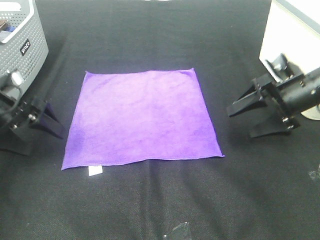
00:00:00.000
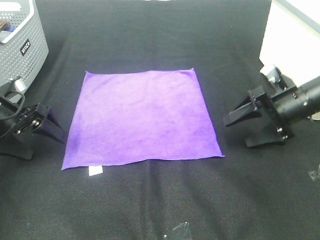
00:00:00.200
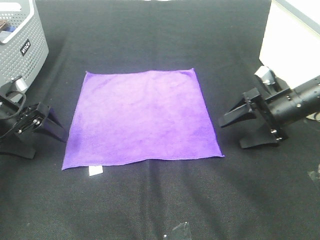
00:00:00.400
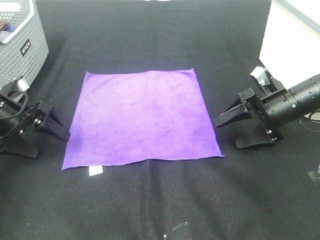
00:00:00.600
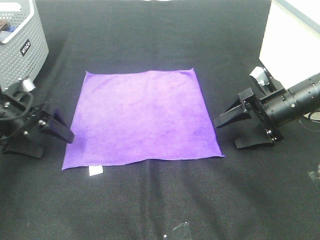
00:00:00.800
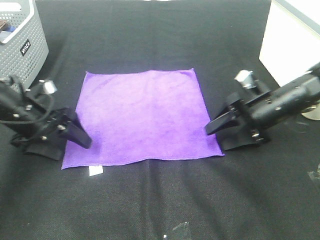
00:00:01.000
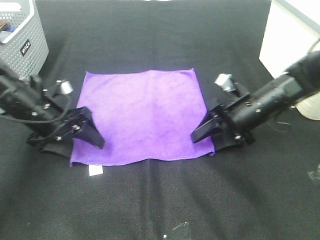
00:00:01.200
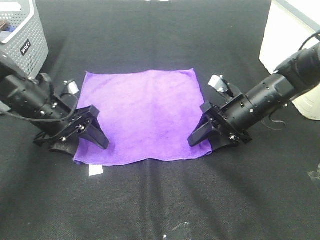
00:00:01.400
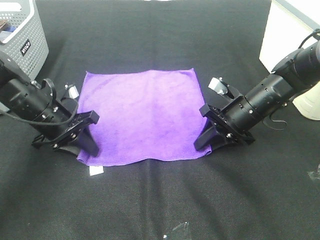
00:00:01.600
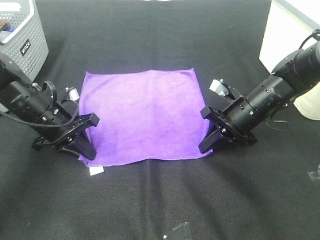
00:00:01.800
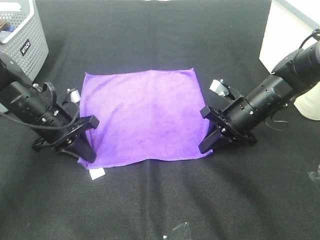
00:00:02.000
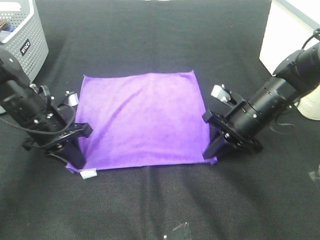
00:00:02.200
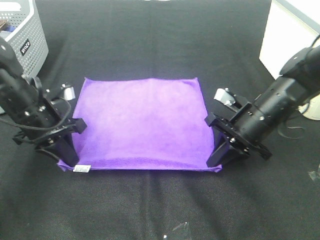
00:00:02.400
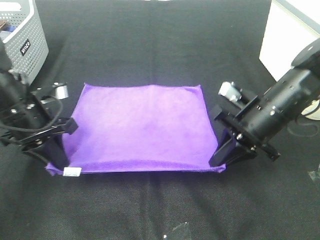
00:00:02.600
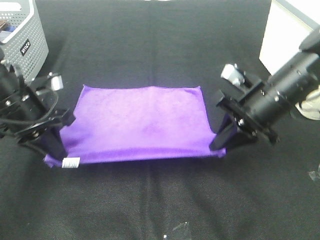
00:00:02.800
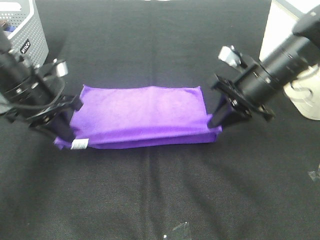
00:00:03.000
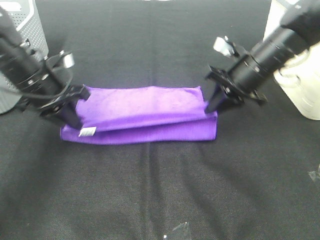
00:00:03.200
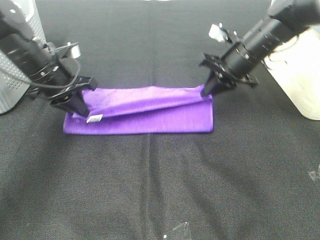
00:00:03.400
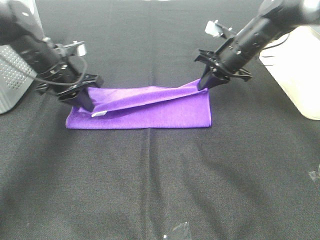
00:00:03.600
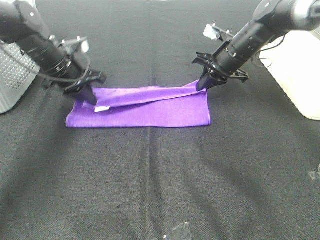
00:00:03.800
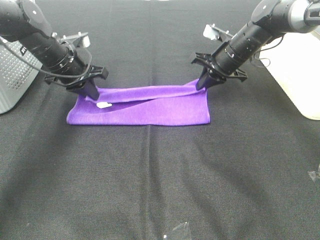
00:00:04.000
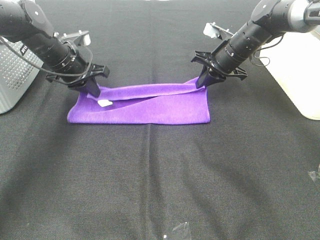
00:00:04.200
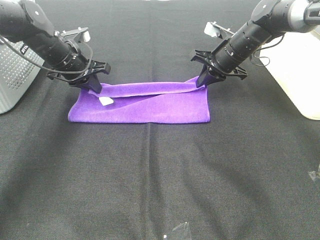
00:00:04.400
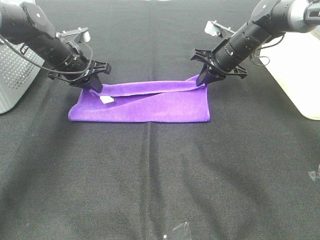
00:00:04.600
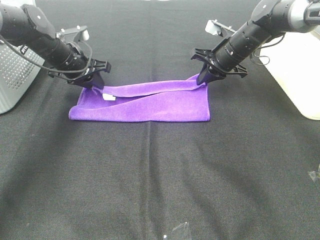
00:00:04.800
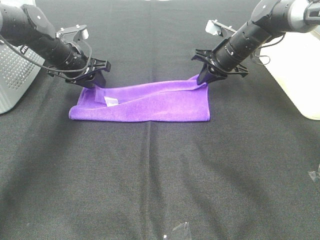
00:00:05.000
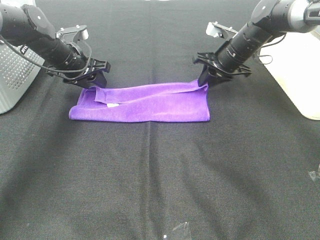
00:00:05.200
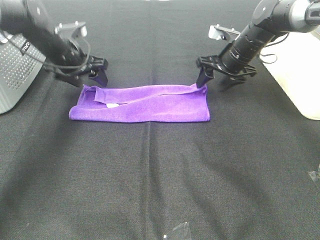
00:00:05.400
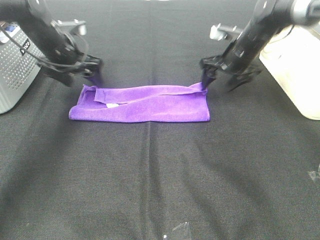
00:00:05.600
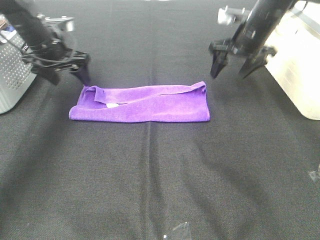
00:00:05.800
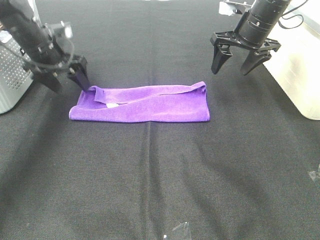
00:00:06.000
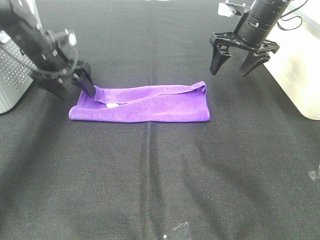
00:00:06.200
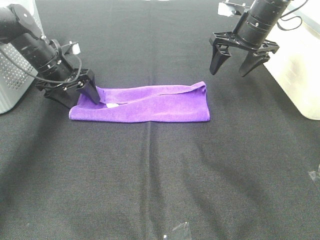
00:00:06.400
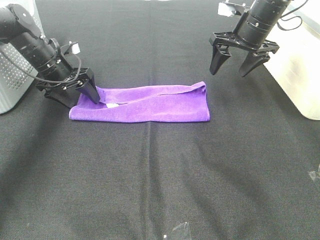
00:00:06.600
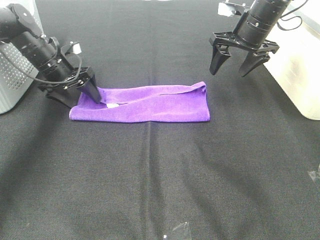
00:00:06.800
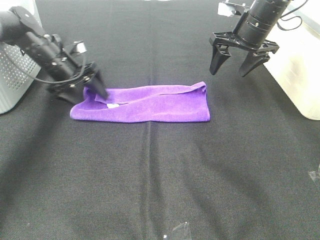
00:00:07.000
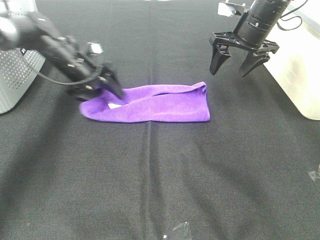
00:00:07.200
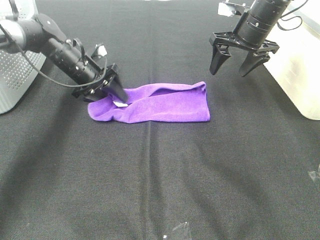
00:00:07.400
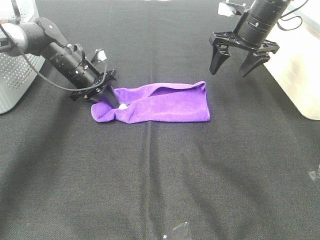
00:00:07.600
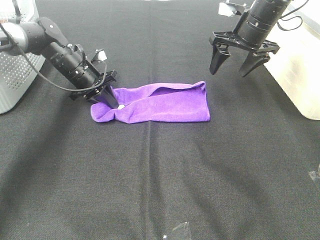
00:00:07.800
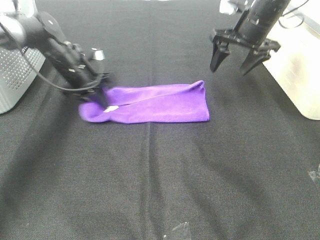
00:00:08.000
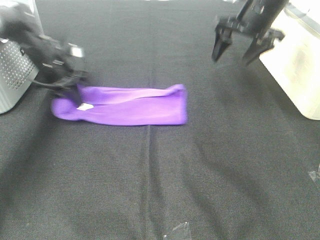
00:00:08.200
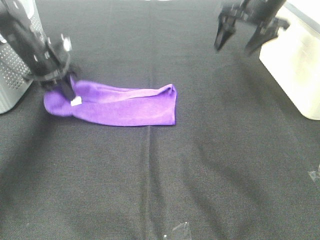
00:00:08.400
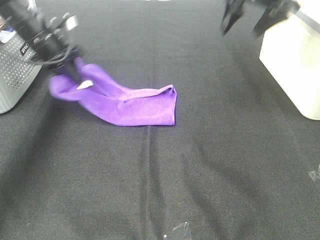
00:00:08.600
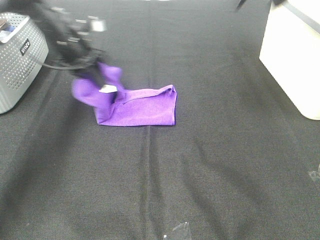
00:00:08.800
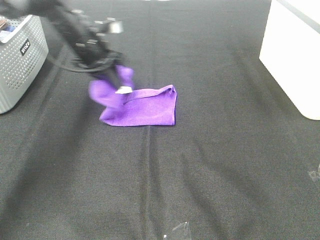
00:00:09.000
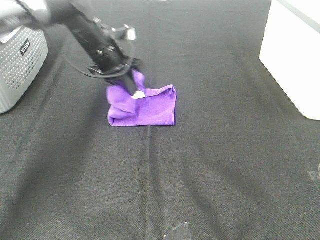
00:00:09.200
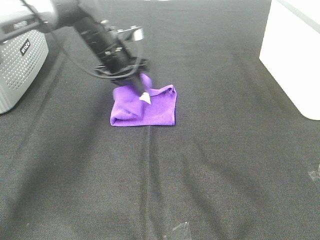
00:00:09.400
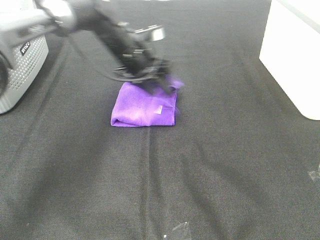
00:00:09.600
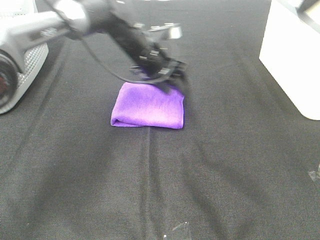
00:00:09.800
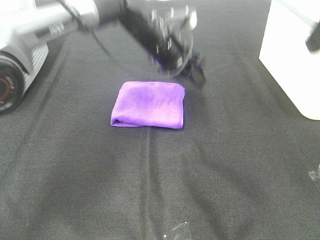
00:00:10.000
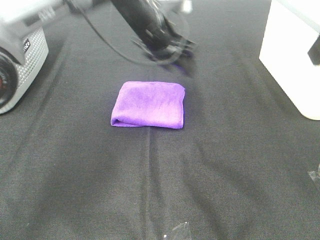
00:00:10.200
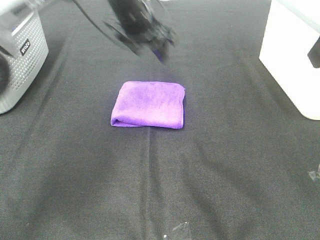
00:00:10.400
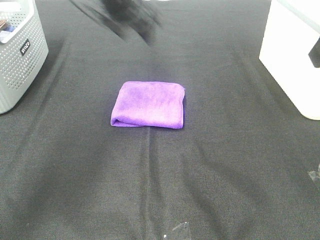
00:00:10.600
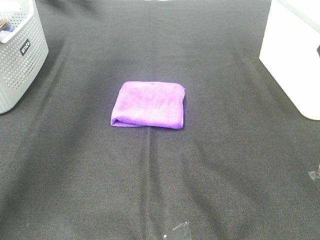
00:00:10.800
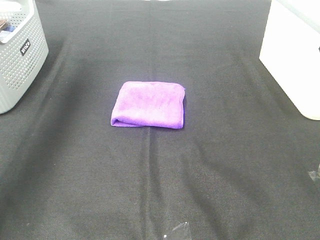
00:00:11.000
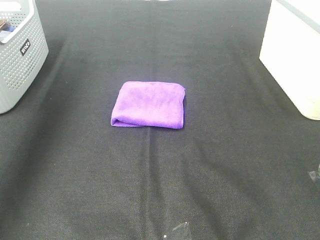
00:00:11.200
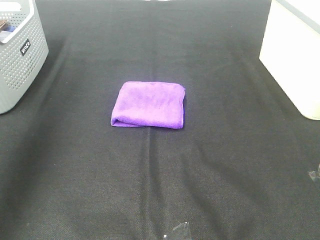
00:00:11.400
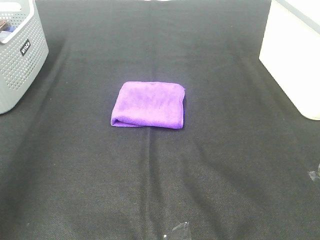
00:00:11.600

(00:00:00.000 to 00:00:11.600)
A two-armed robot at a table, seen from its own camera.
Task of the whole recording: Fold towels.
Step, 00:00:00.000 - 00:00:02.000: Left hand: grab the bottom left corner of purple towel.
Step, 00:00:00.000 - 00:00:02.000: Right hand: grab the bottom right corner of purple towel.
Step, 00:00:02.200 - 00:00:04.600: Left hand: fold the purple towel up.
Step, 00:00:02.200 - 00:00:04.600: Right hand: fold the purple towel up.
Step, 00:00:04.800 - 00:00:09.400: Left hand: fold the purple towel from left to right.
00:00:00.000 - 00:00:01.400: The left gripper goes about 10 cm to the right, and closes up; the right gripper is displaced to the left and downward by some 10 cm, and closes up.
00:00:01.400 - 00:00:02.800: The grippers both shift upward by roughly 10 cm. The right gripper closes. Meanwhile the left gripper closes its fingers.
00:00:02.800 - 00:00:04.400: The grippers both shift forward by about 20 cm.
00:00:04.400 - 00:00:05.800: The right gripper heads upward, covering some 5 cm, and opens up, while the left gripper moves about 5 cm, and opens up.
00:00:05.800 - 00:00:07.200: The left gripper goes some 10 cm downward and to the right.
00:00:07.200 - 00:00:08.800: The left gripper shifts some 10 cm upward, and closes up. The right gripper is displaced upward by roughly 15 cm.
00:00:08.800 - 00:00:10.200: The left gripper goes approximately 15 cm to the right, and opens up. Meanwhile the right gripper is displaced backward by approximately 20 cm.
00:00:10.200 - 00:00:11.600: The right gripper travels backward by approximately 20 cm; the left gripper travels backward, to the left and upward by some 50 cm.

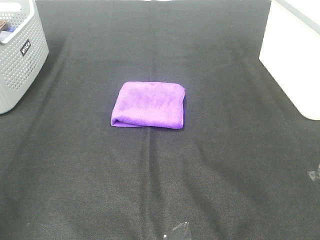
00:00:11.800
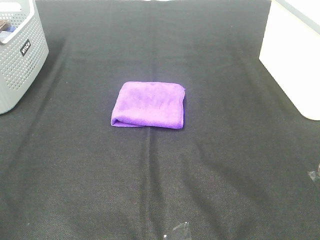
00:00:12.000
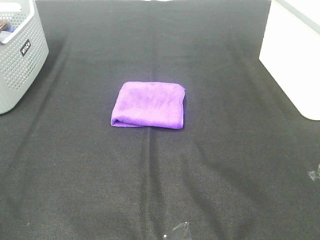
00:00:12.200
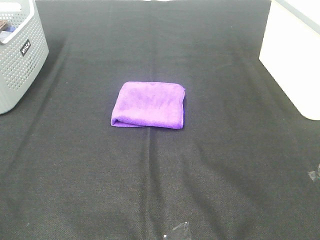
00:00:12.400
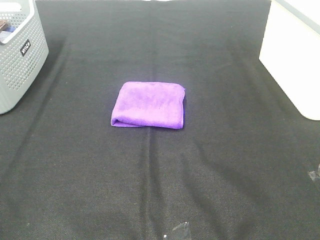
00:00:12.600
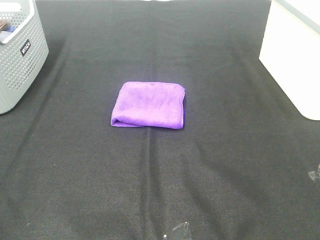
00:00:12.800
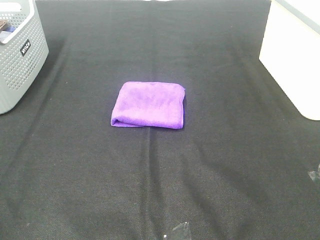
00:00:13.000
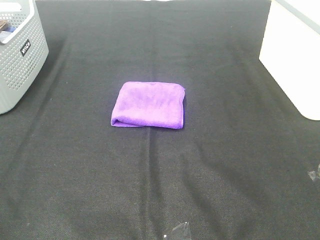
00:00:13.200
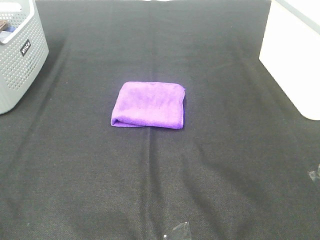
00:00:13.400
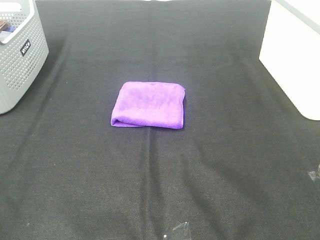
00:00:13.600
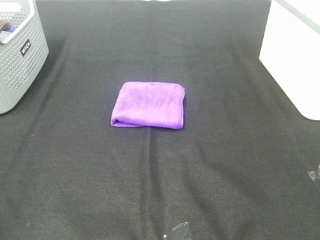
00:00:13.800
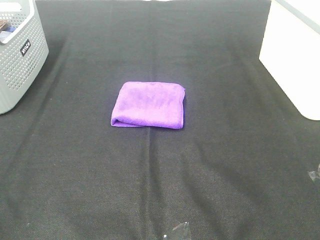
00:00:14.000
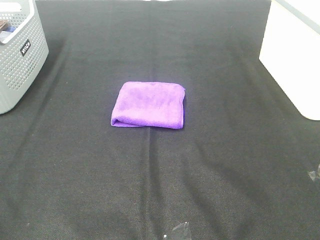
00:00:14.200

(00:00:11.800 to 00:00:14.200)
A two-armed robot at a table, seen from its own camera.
Task of the whole recording: Fold towels.
00:00:13.000 - 00:00:14.200: Neither gripper changes place.
